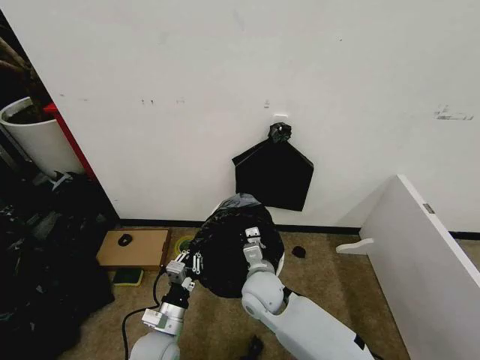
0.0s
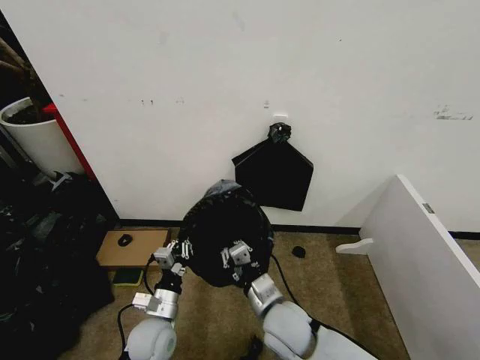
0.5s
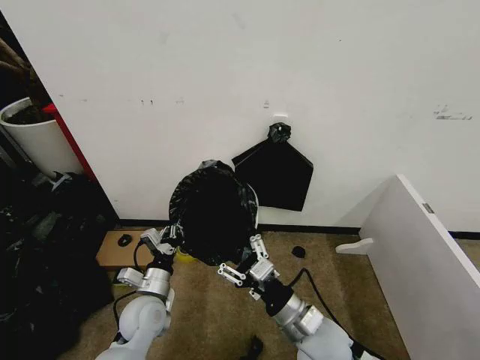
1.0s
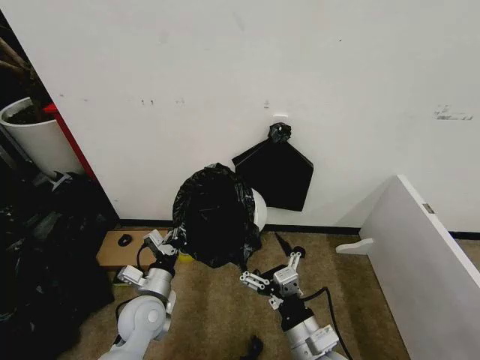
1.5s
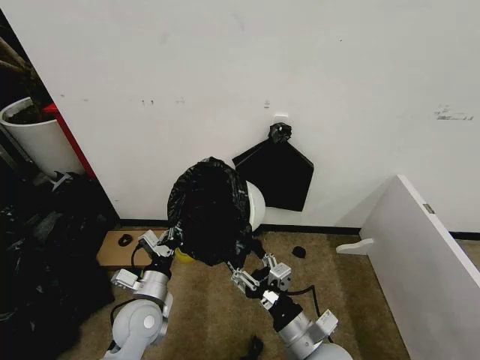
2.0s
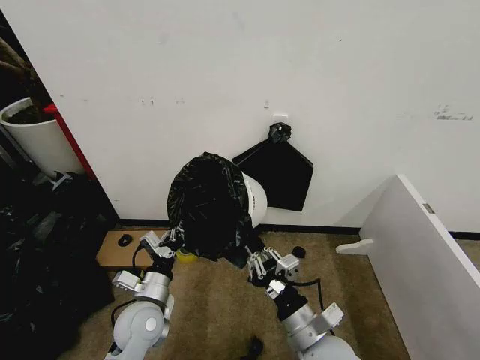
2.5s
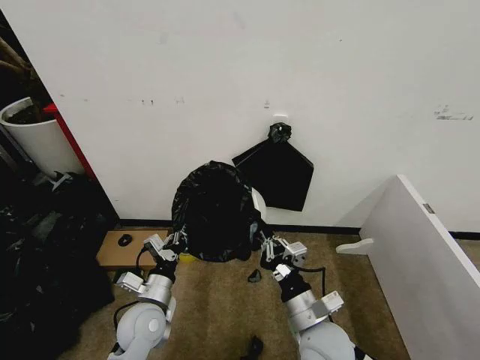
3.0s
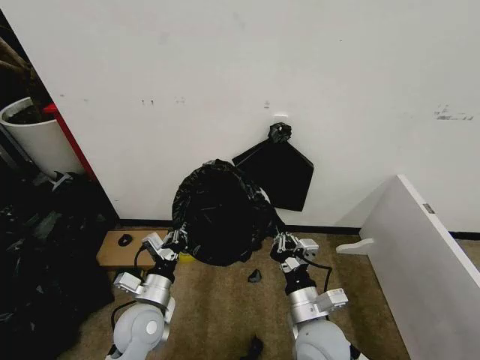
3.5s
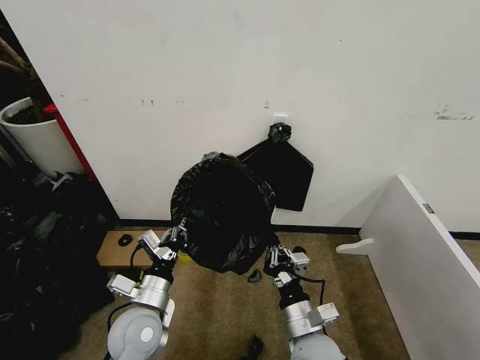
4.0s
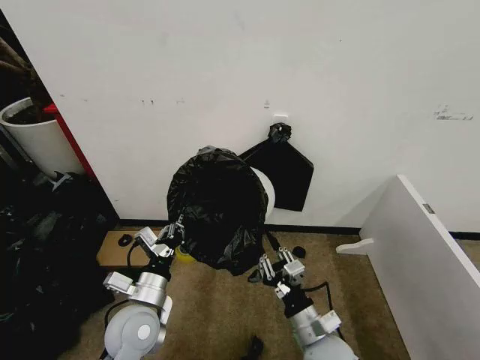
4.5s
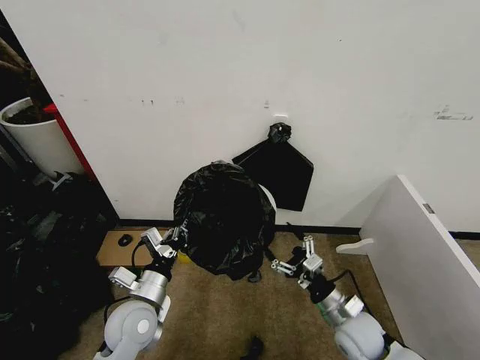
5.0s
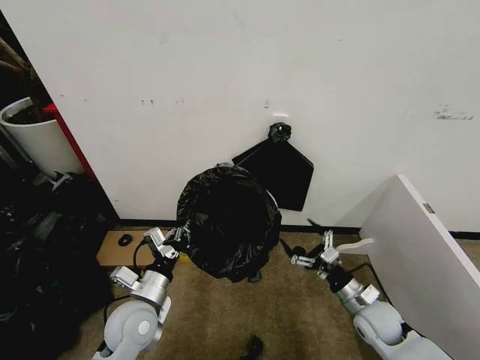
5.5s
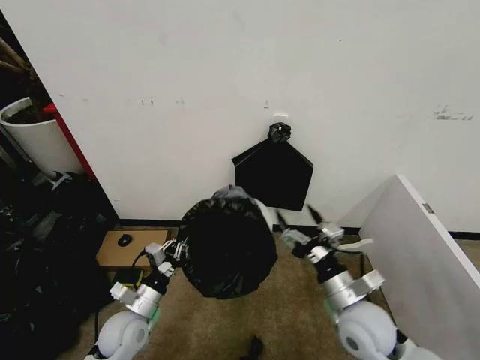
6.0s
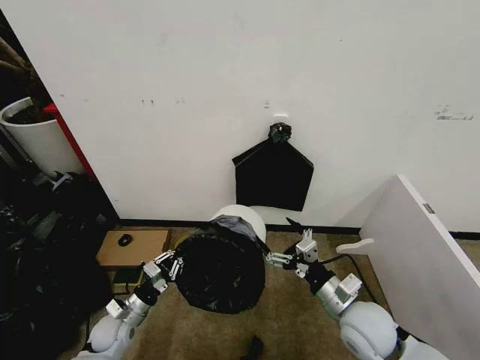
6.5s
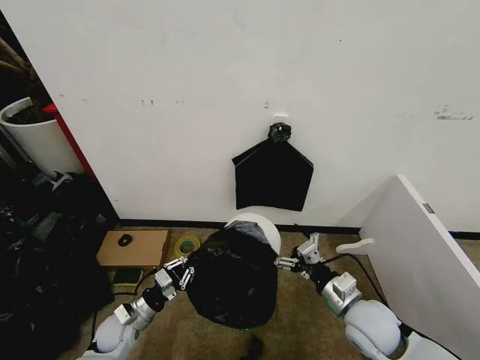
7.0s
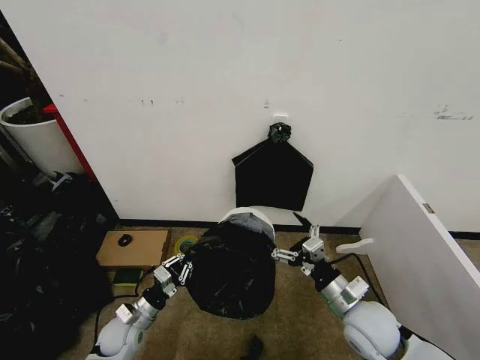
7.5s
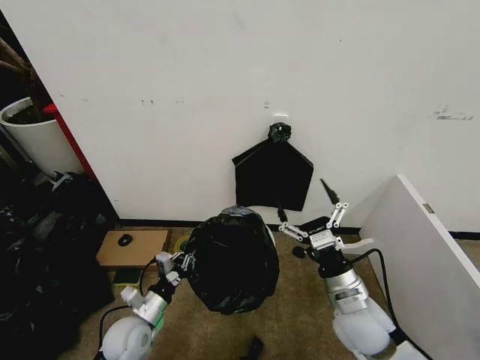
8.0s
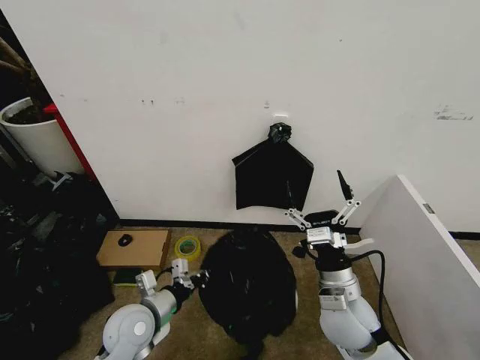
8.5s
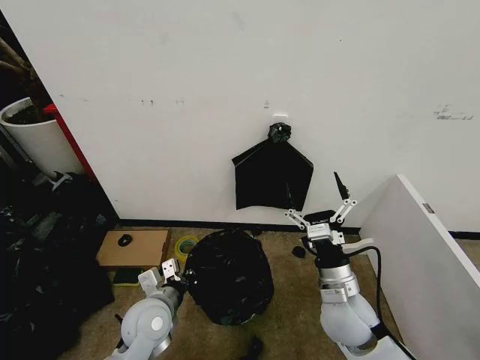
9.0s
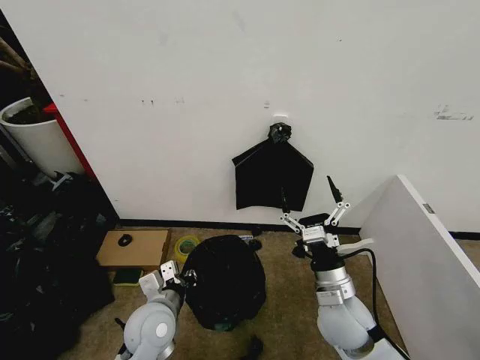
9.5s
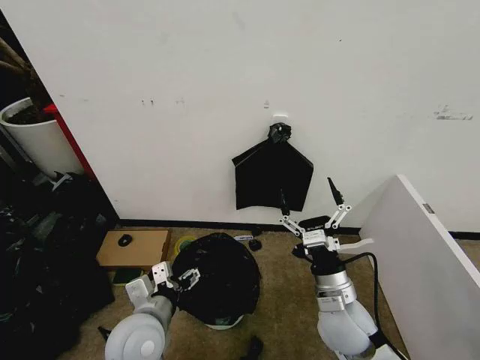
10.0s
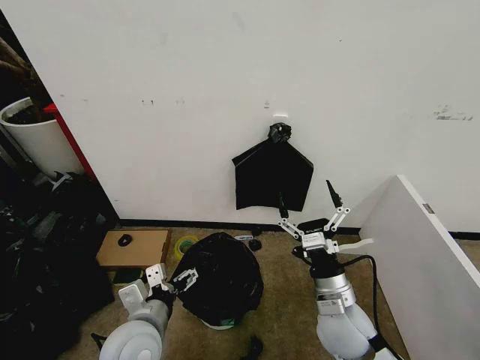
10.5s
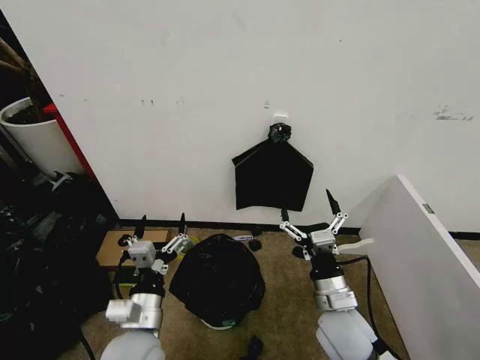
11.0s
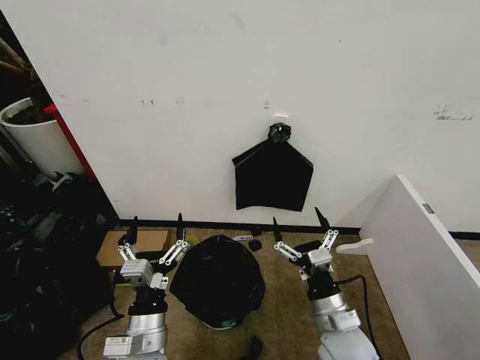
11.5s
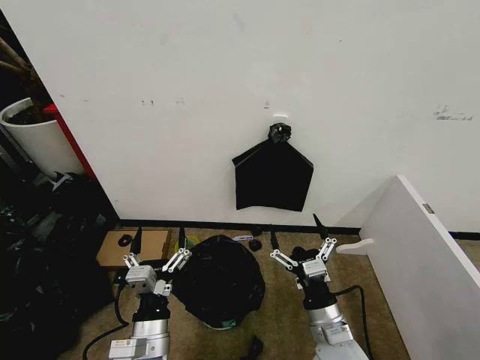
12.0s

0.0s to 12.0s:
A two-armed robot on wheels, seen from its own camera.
Task of the whole recording: Place the garbage bag over the trash bin.
0.0s to 2.0s: The right gripper heads backward and to the right, covering roughly 20 cm, and opens, while the left gripper moves upward, about 5 cm.
2.0s to 4.0s: The right gripper closes its fingers.
4.0s to 6.0s: The right gripper is displaced to the right by roughly 10 cm, and opens up; the left gripper shifts approximately 10 cm downward and to the left.
8.0s to 10.0s: The left gripper shifts about 15 cm upward and to the right, and opens its fingers.
10.0s to 12.0s: The two grippers go some 5 cm backward.

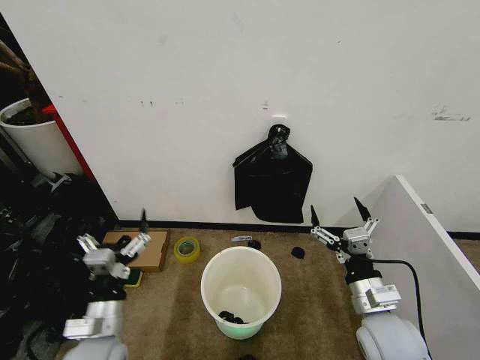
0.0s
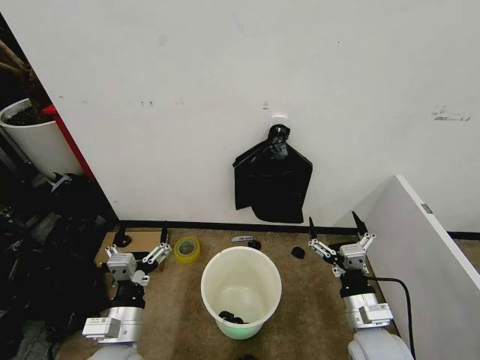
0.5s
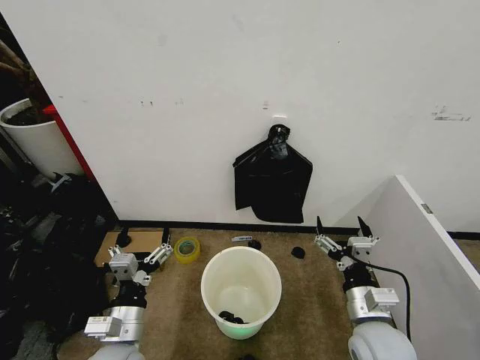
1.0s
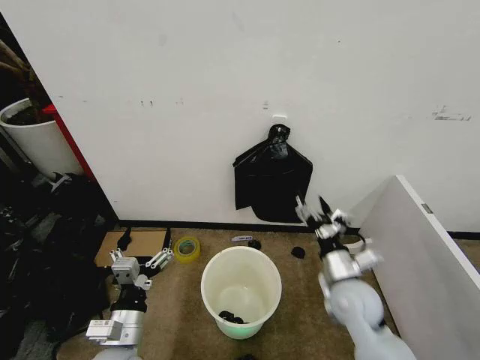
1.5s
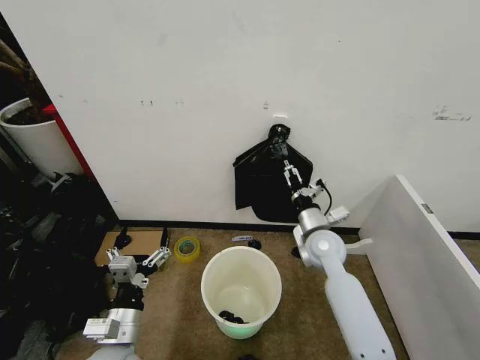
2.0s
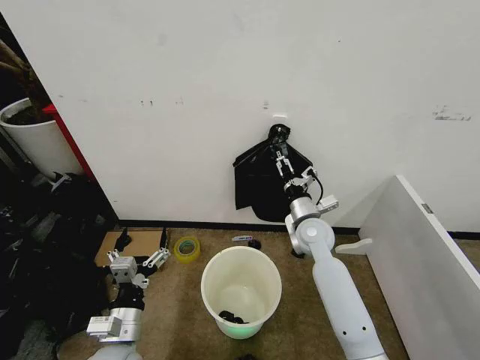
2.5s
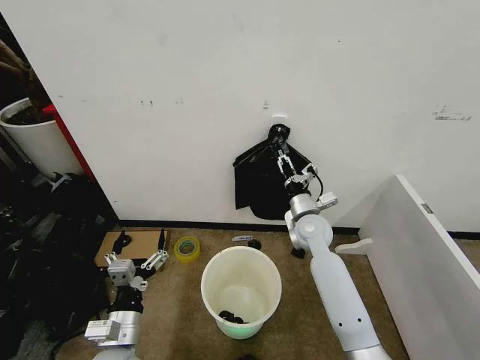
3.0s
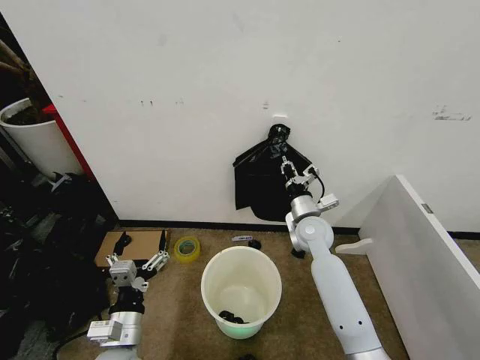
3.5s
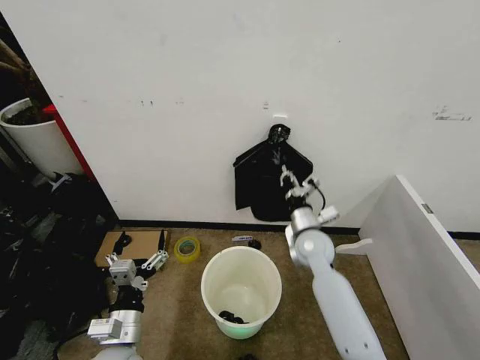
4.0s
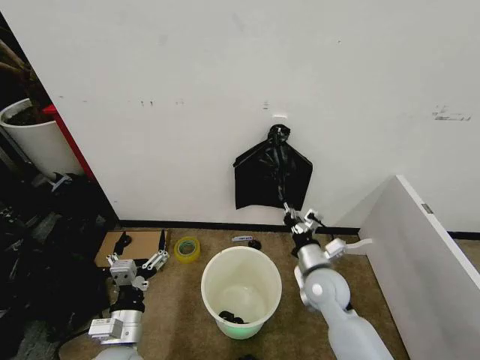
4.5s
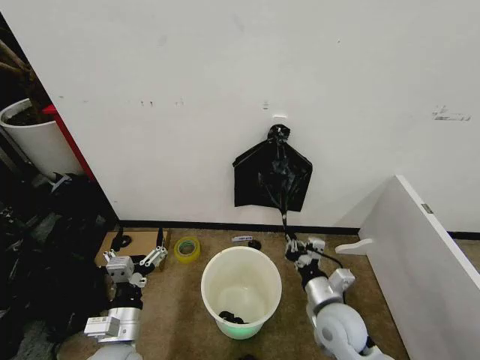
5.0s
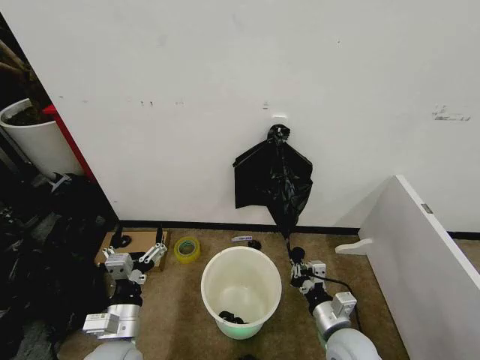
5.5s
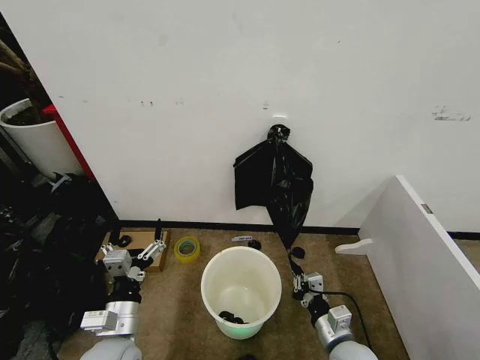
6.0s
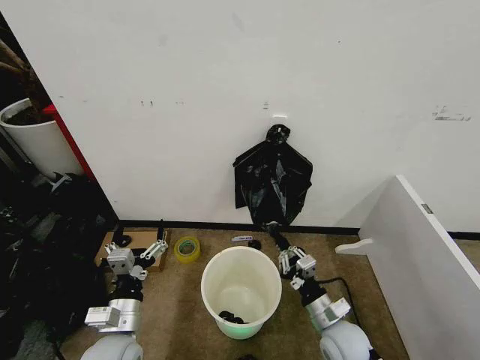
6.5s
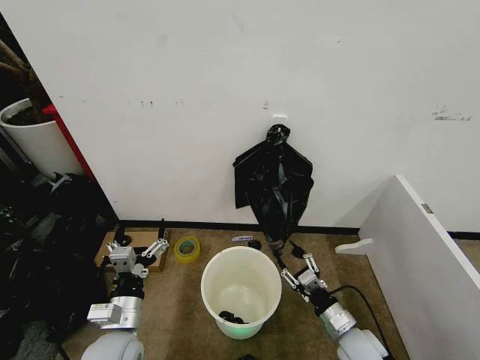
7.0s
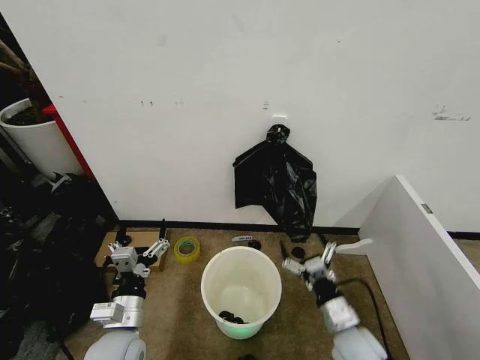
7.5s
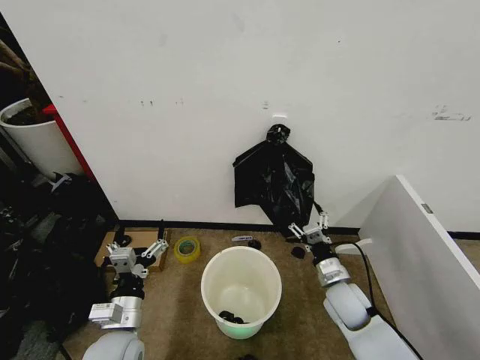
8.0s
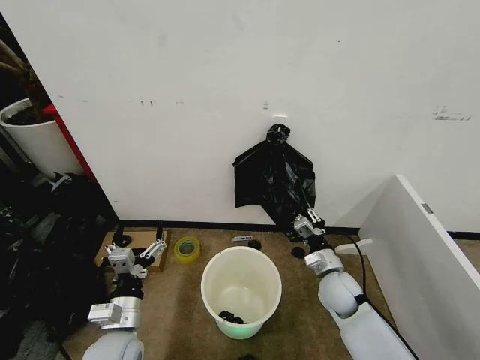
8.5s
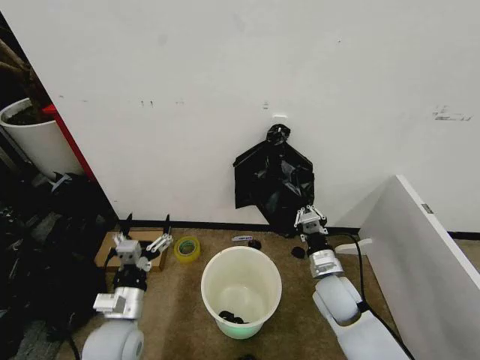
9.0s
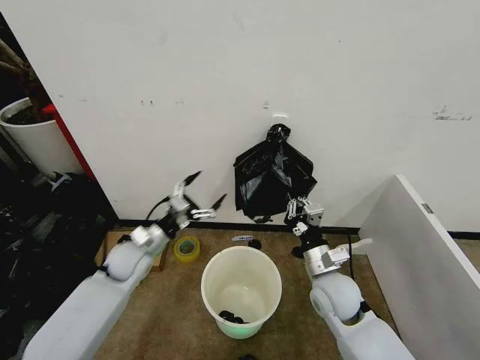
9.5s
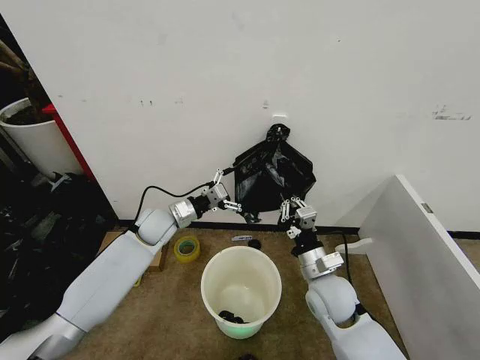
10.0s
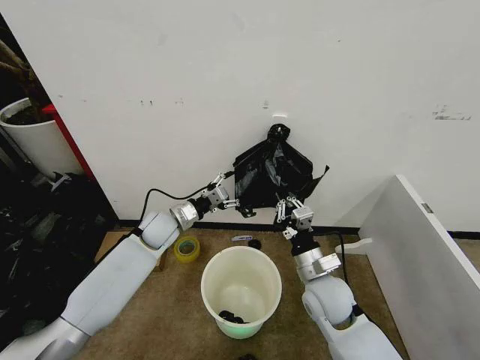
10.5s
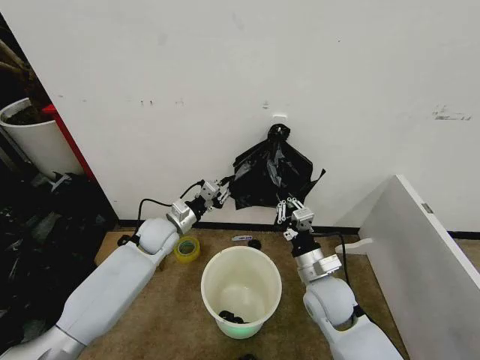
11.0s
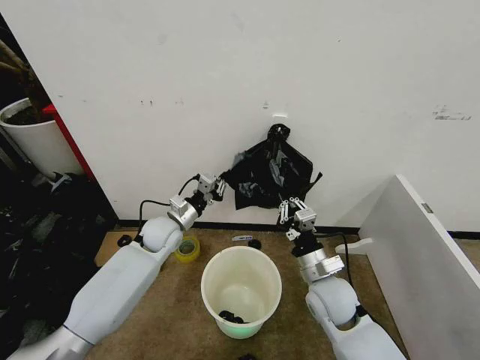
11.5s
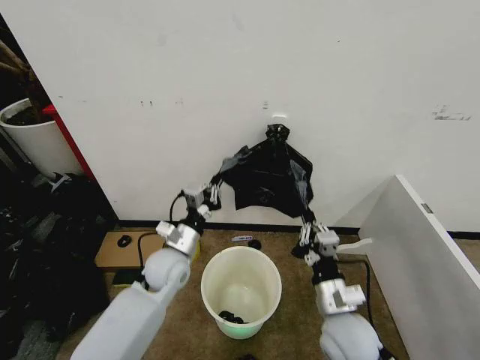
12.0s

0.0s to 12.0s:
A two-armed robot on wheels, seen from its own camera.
Task of the whole recording: Place the garbage bag over the trash bin.
2.0s to 4.0s: The right gripper closes its fingers.
4.0s to 6.0s: The right gripper travels backward and downward by some 25 cm.
6.0s to 8.0s: The right gripper shifts approximately 10 cm forward, and opens up.
8.0s to 10.0s: The right gripper is displaced upward and to the left by roughly 10 cm, and closes. Meanwhile the left gripper heads forward, covering approximately 25 cm.
10.0s to 12.0s: The right gripper travels backward by some 10 cm. Meanwhile the left gripper moves backward and to the right, approximately 10 cm, and closes.

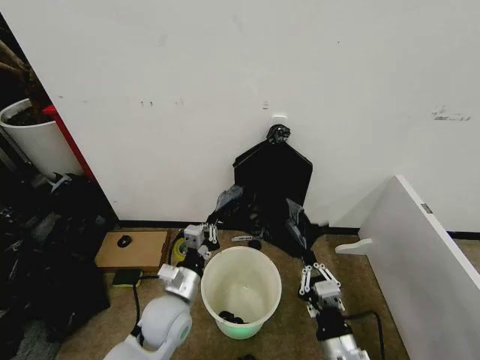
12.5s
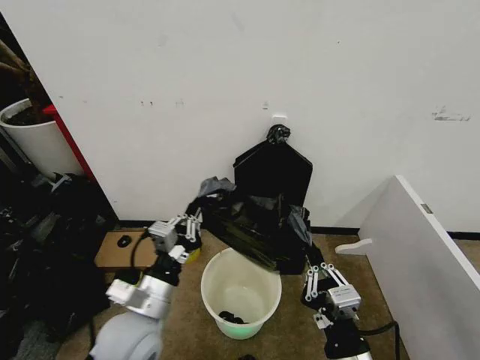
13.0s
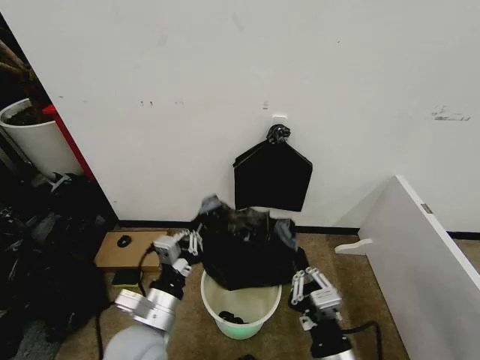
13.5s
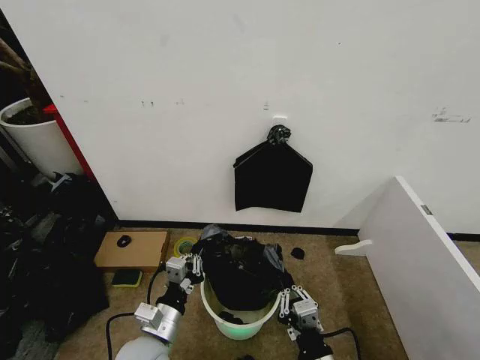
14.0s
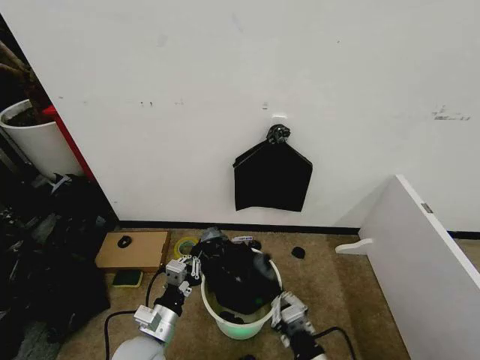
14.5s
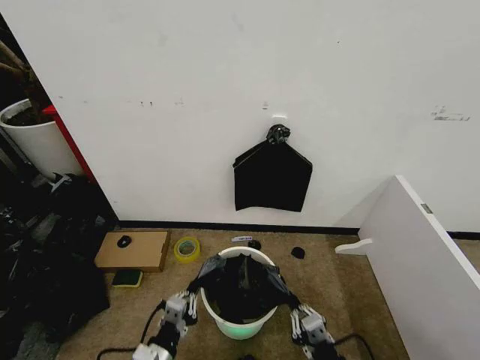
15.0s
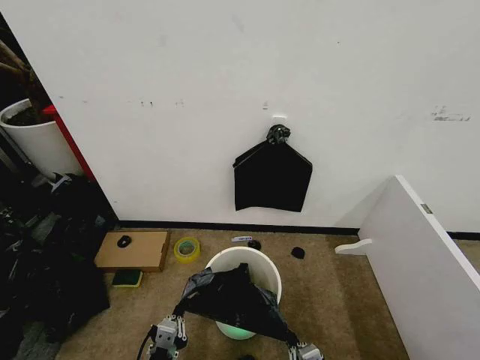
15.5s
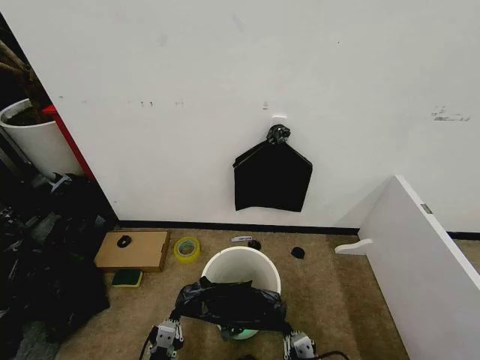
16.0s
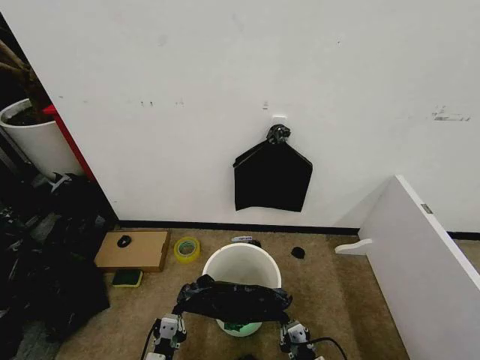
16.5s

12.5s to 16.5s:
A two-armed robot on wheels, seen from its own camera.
Task of the whole recording: Place the garbage bag over the trash bin.
12.5s to 14.5s: The right gripper moves approximately 5 cm, while the left gripper moves backward, roughly 5 cm, and reaches about 5 cm upward, then returns.
14.5s to 16.5s: The left gripper heads downward and backward, covering about 10 cm; the right gripper is displaced downward by approximately 10 cm.
